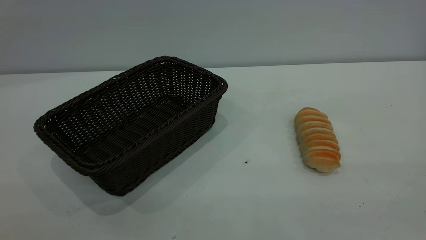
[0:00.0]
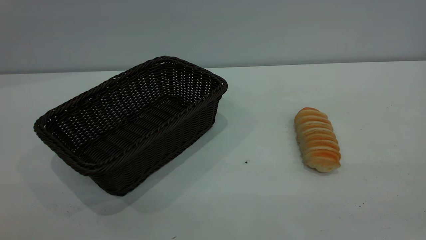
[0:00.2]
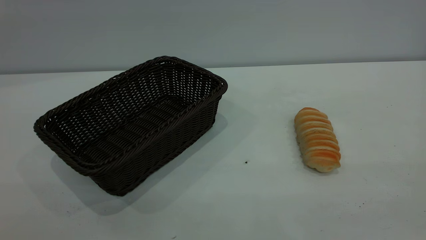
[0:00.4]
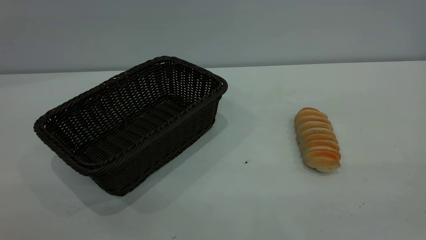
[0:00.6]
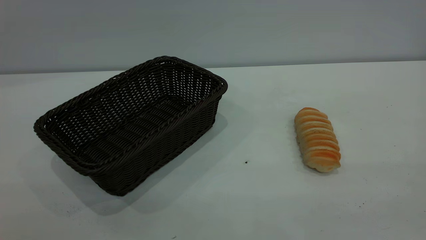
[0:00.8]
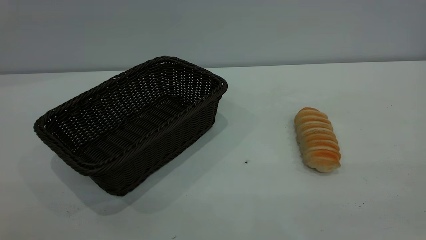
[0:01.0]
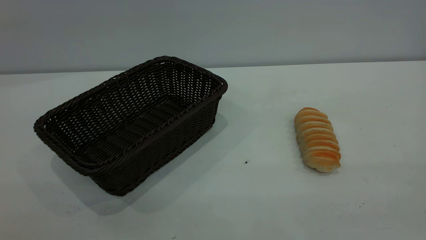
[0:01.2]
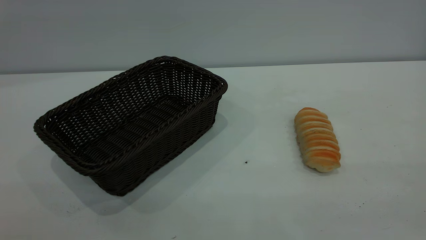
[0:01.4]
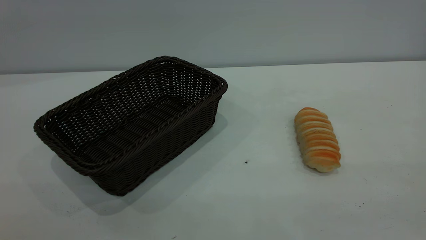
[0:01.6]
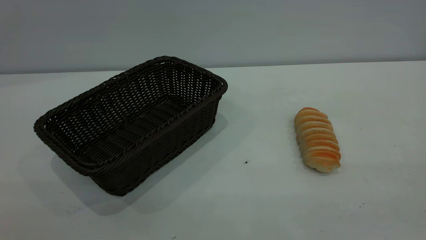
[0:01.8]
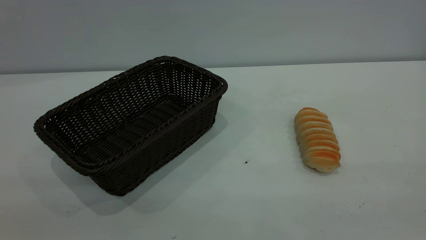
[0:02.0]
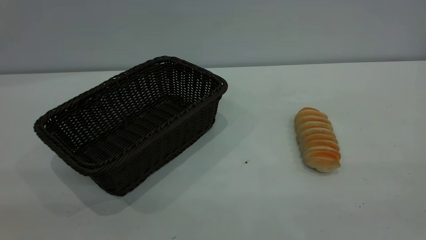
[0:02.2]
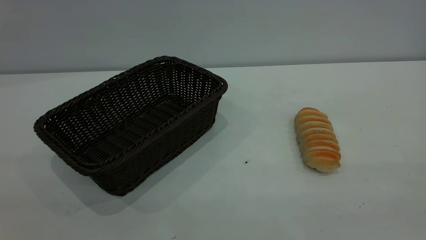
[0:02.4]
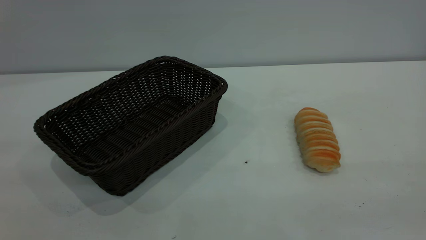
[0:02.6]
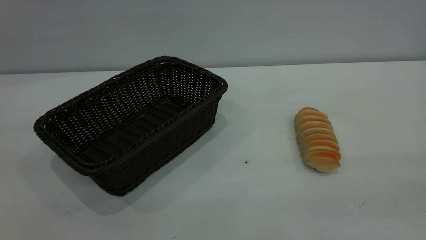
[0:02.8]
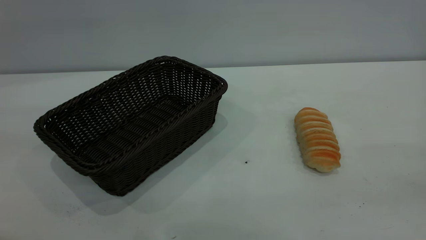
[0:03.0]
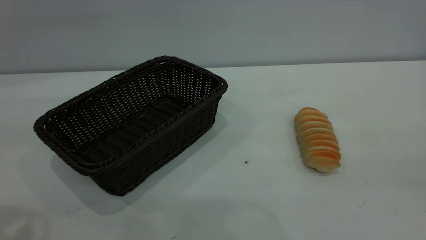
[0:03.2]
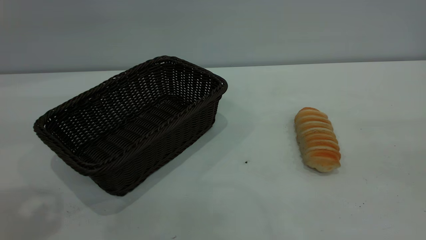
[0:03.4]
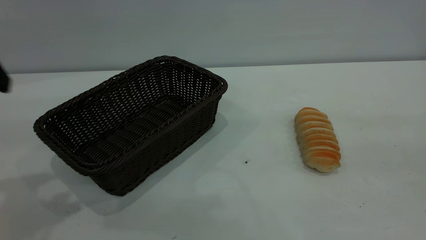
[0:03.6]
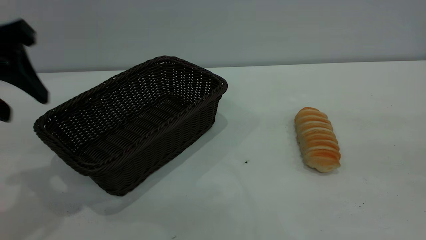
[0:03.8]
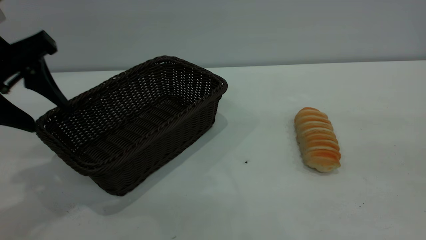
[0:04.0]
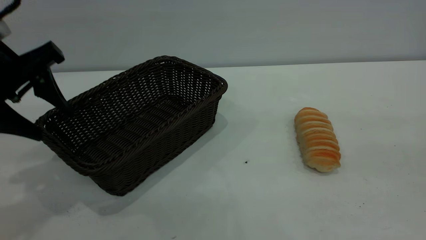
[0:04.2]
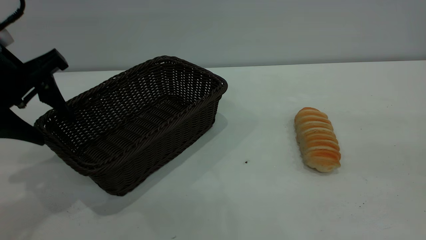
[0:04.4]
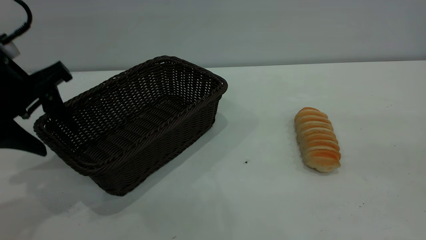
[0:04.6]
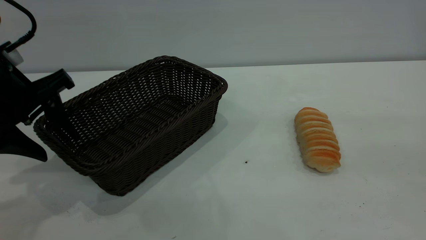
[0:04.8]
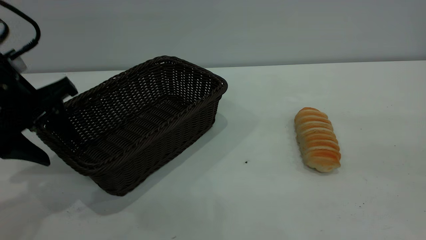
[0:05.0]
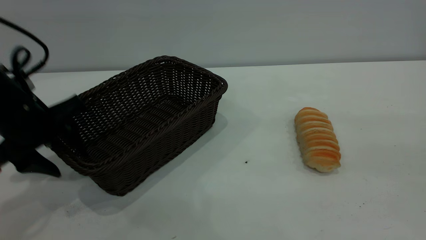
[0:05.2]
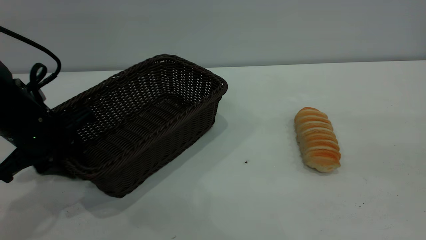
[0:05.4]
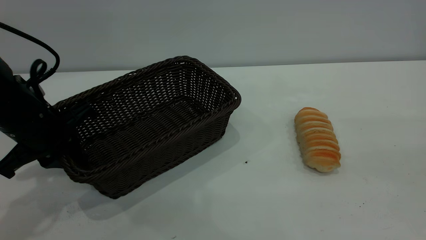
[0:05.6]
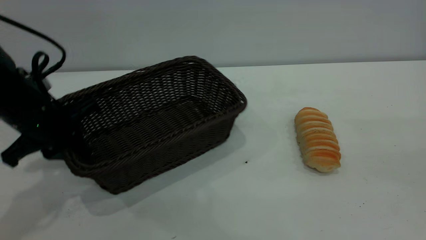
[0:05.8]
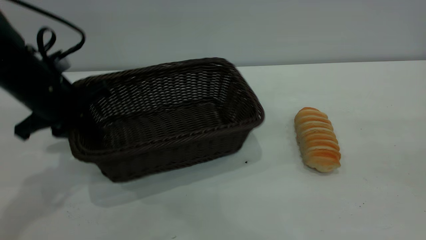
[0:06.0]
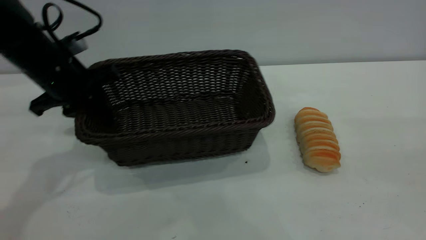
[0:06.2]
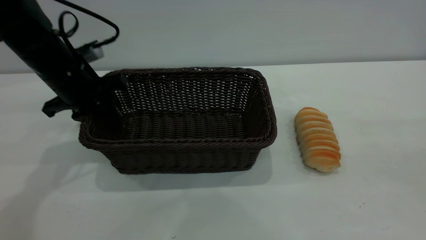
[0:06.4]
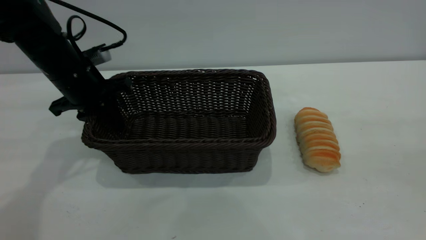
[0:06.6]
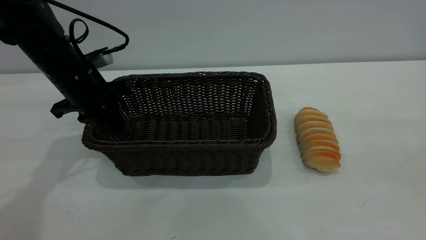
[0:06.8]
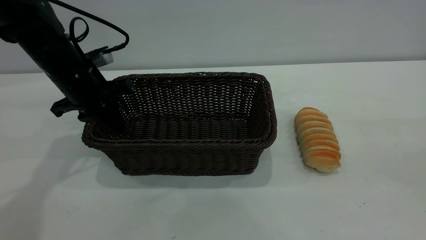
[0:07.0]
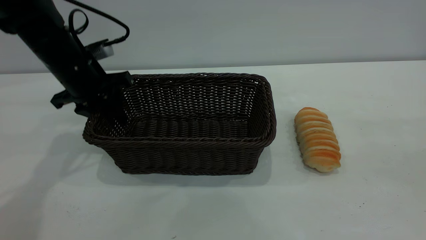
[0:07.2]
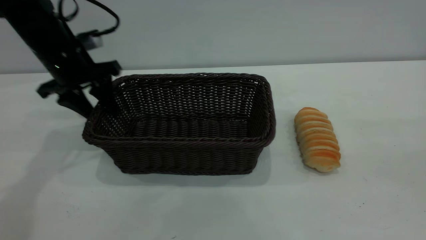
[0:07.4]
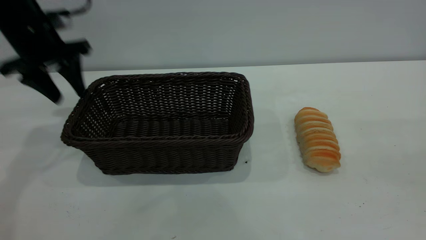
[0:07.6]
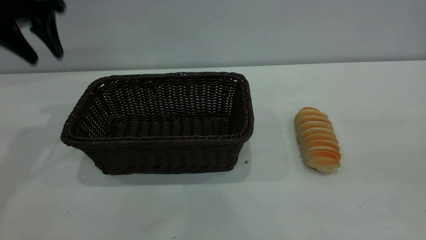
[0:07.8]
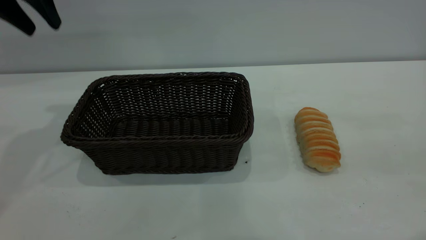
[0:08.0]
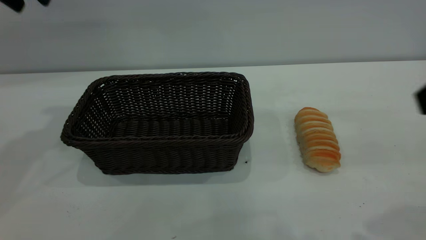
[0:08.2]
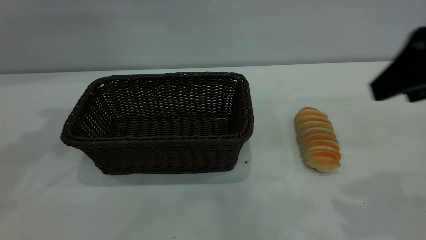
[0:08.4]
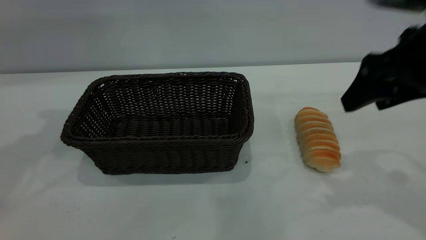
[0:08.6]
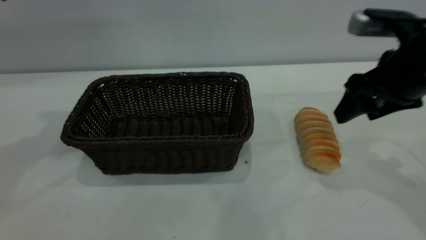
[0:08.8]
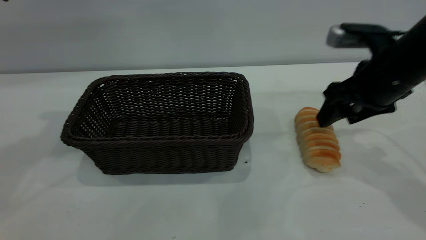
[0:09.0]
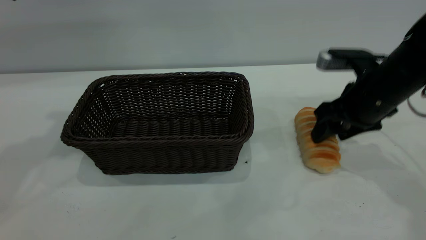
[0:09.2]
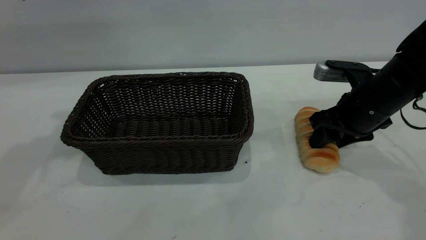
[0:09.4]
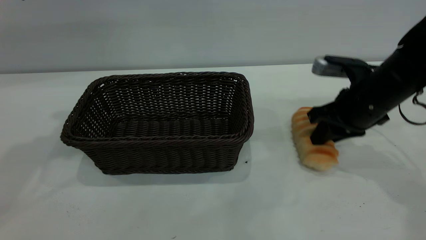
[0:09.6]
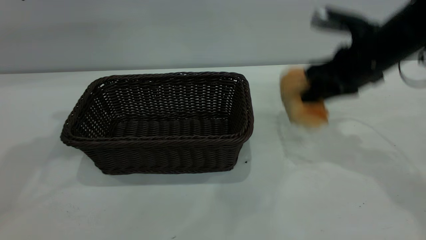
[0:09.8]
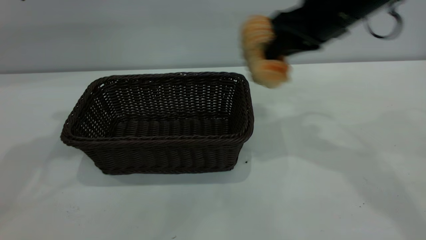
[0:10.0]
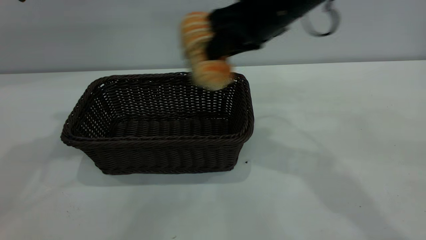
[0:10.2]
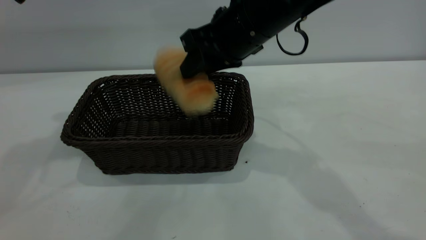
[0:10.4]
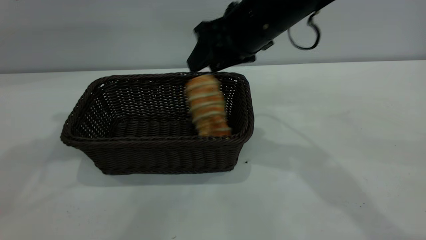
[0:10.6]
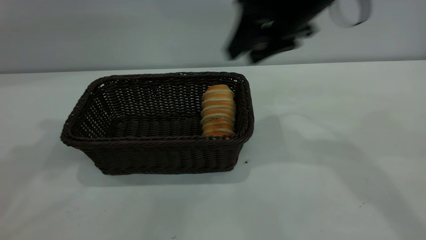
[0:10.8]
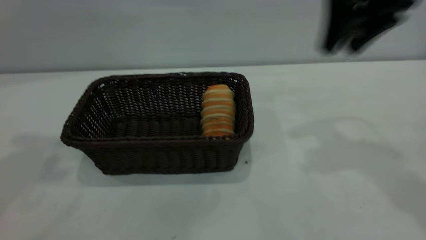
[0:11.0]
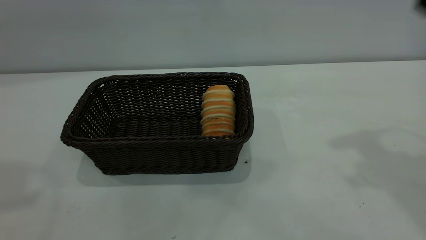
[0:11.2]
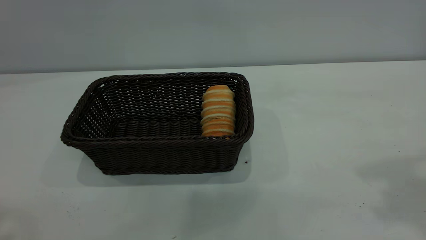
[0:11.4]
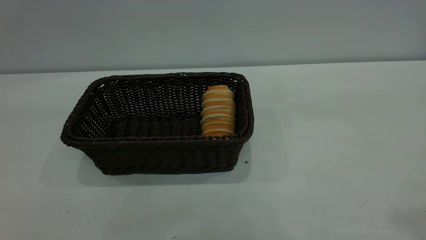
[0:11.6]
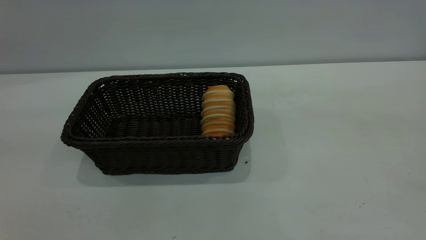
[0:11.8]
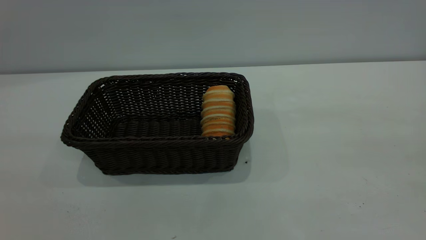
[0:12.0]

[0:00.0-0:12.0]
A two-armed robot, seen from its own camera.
Task of the whole recording: One hand grasps the black basket and places it in the middle of the table, while the other hand picks up the long bread and puts it into the black basket.
Step, 0:00.0 to 0:07.8: Move the basket to the center of view.
Step, 0:10.0 to 0:10.8: place the bread into the basket.
0:00.0 to 0:01.6: Both grippers stay put.
0:03.0 to 0:04.4: The left gripper is displaced downward and forward by some 20 cm.
0:04.4 to 0:06.0: The left gripper shifts about 10 cm forward and downward, and closes.
0:06.0 to 0:07.6: The left gripper heads forward and upward, covering about 10 cm, and opens its fingers.
0:07.6 to 0:09.0: The right gripper is displaced forward and downward by about 30 cm, while the left gripper goes some 15 cm upward.
0:09.0 to 0:10.4: The right gripper goes roughly 15 cm to the left, and closes.
0:10.4 to 0:12.0: The left gripper travels backward by about 35 cm, while the right gripper moves backward, to the right and upward, roughly 50 cm.

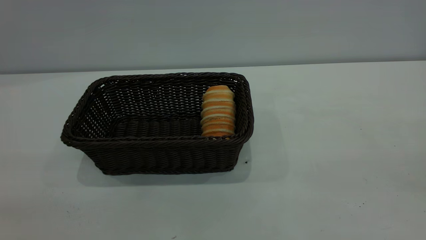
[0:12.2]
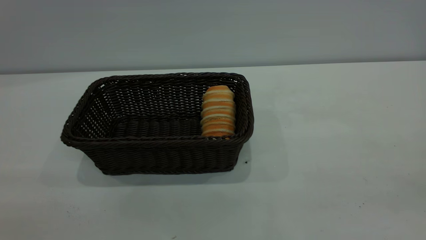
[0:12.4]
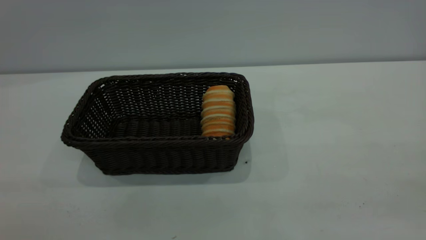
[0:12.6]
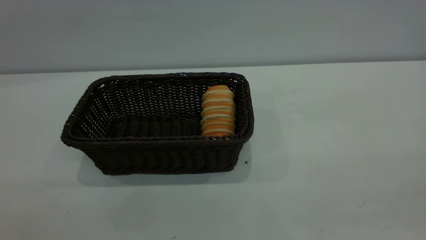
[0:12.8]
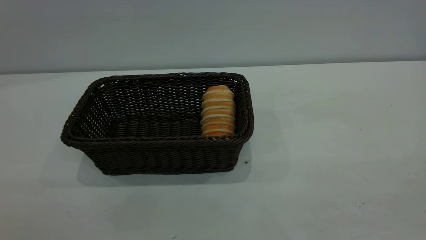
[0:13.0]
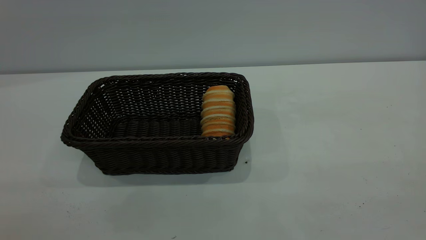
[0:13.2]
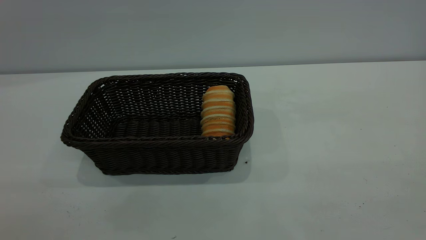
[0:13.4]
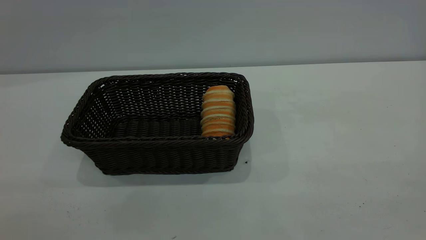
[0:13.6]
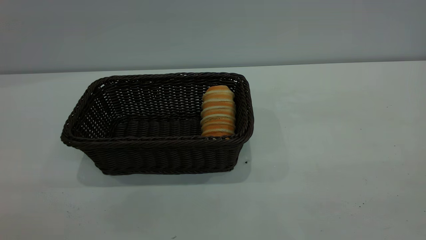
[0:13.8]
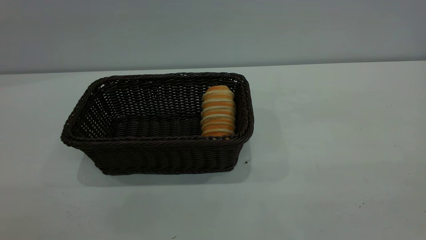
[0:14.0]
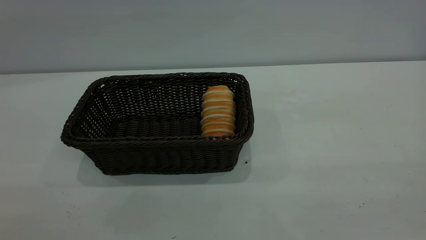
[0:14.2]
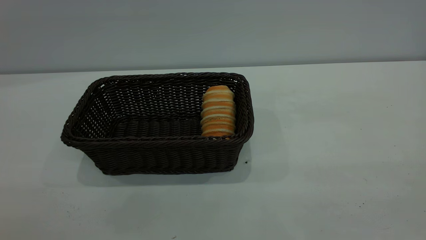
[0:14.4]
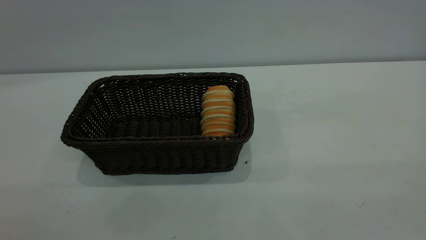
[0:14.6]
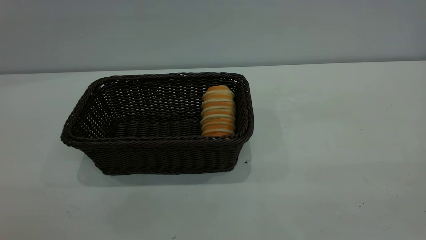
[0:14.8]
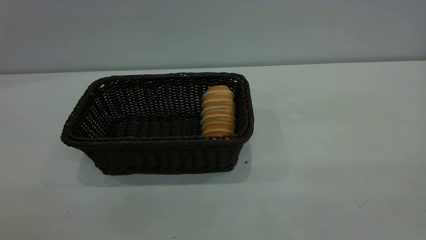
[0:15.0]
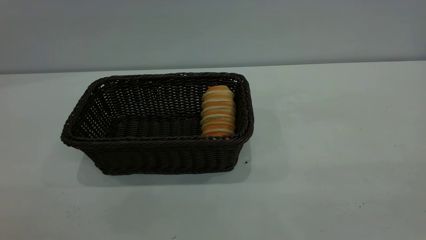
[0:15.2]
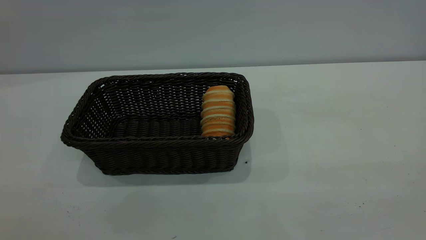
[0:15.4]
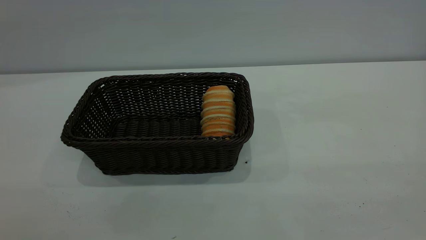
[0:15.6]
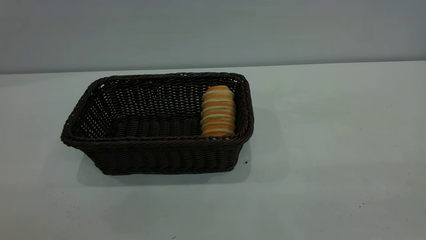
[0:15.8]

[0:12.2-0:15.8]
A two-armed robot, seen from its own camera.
Task of the whole recording: One hand grasps the black basket and places it in the middle of the table, while the other hand picks up the long bread and puts it into the black basket.
0:14.0 to 0:15.8: Both grippers stay put.

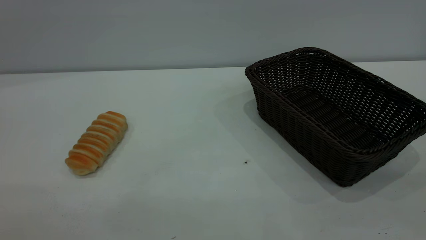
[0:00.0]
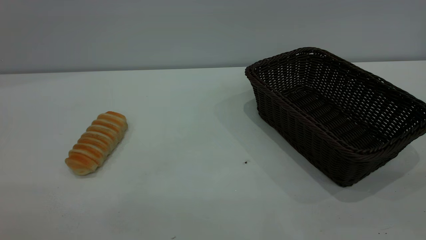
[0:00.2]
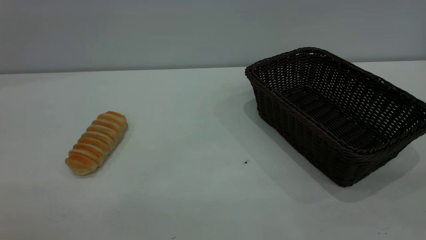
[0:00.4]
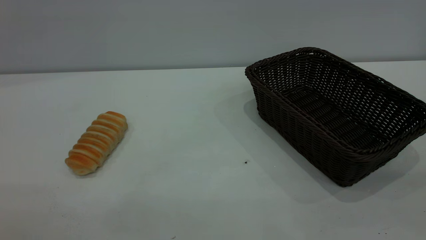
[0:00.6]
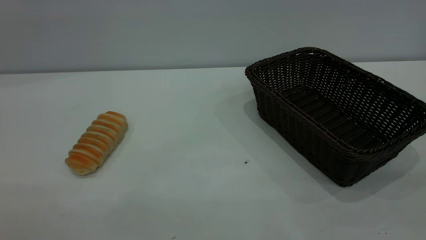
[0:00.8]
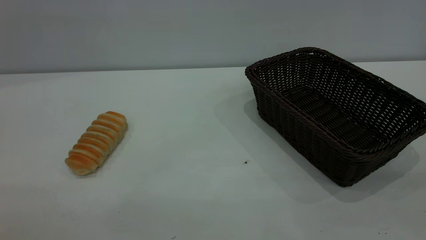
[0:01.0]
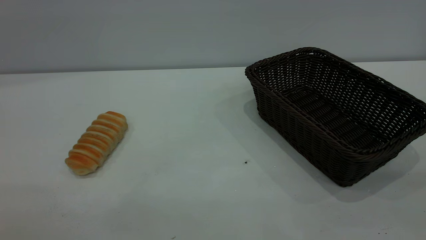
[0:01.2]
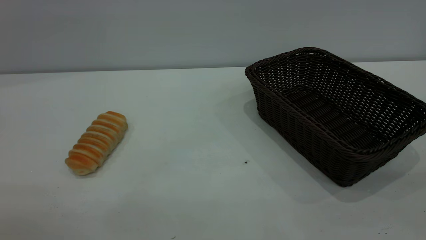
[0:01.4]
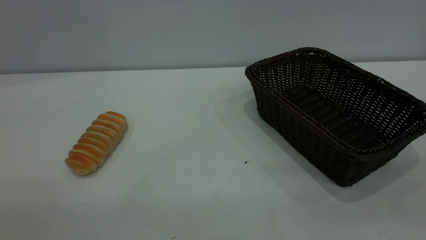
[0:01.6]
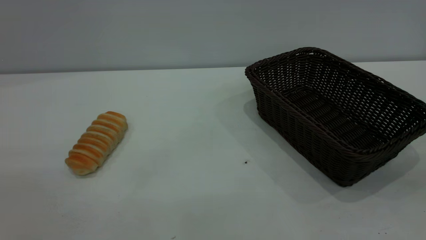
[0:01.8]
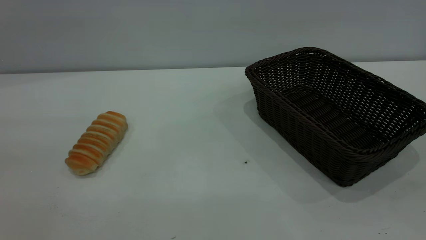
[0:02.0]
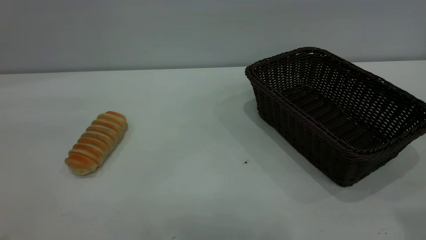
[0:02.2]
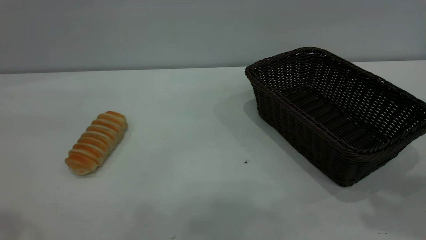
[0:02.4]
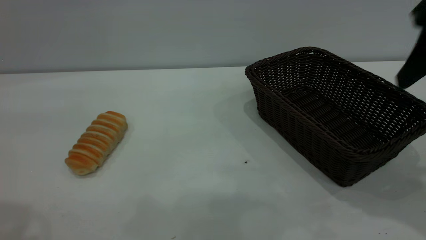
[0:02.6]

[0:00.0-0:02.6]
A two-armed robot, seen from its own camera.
Task of the whole recording: One hand grasps the black basket and places it in the middle of the table, while the other hand picks up the long bread and puts it into the black basket.
0:00.0 to 0:01.2: The two grippers keep their place.
0:01.2 to 0:02.6: The right gripper travels forward by some 30 cm.
